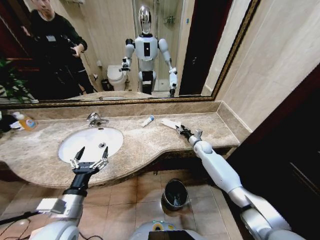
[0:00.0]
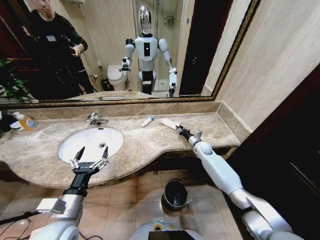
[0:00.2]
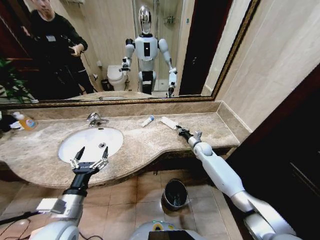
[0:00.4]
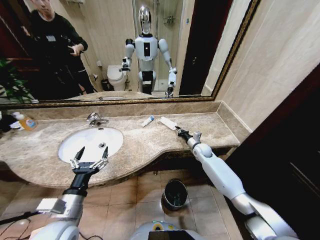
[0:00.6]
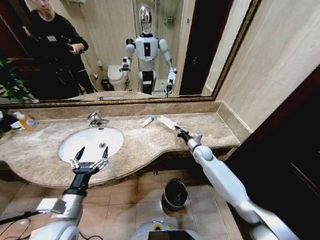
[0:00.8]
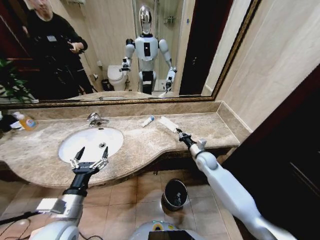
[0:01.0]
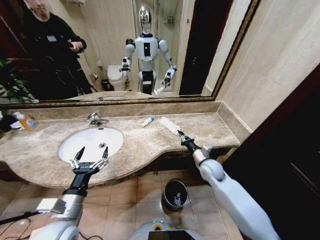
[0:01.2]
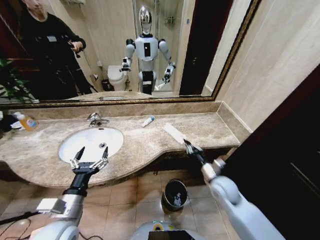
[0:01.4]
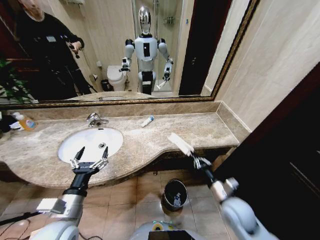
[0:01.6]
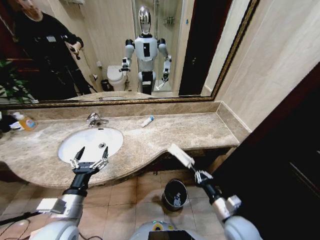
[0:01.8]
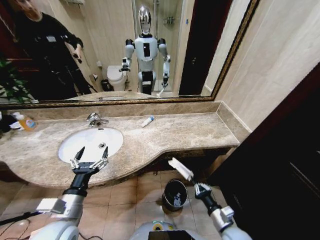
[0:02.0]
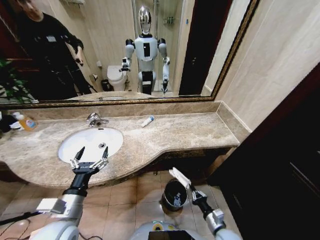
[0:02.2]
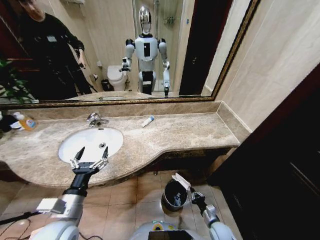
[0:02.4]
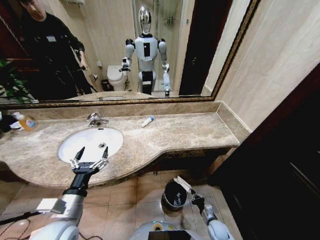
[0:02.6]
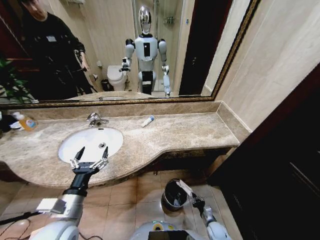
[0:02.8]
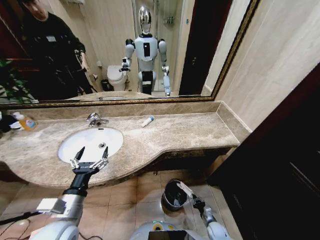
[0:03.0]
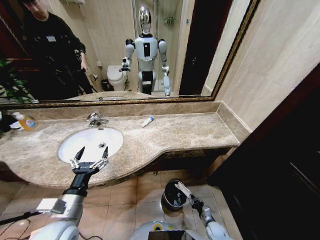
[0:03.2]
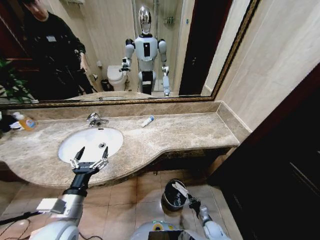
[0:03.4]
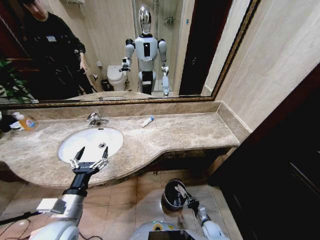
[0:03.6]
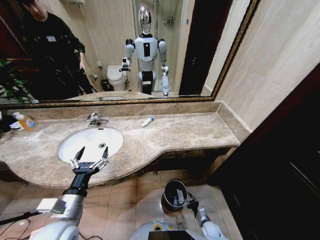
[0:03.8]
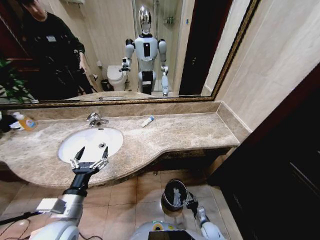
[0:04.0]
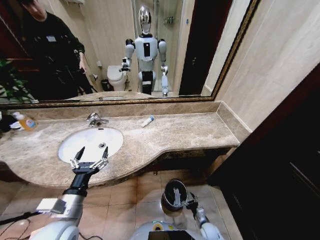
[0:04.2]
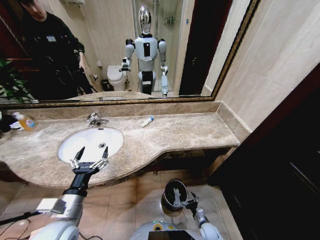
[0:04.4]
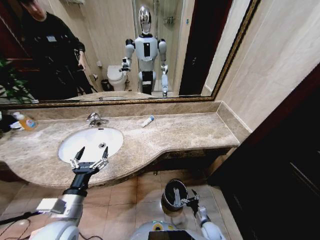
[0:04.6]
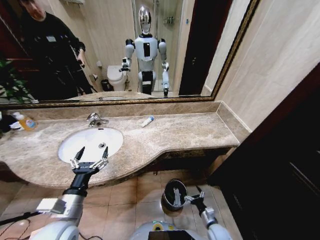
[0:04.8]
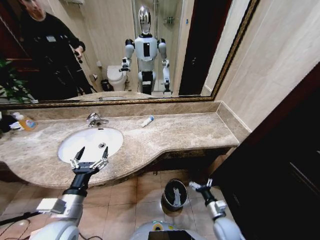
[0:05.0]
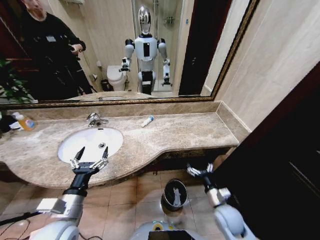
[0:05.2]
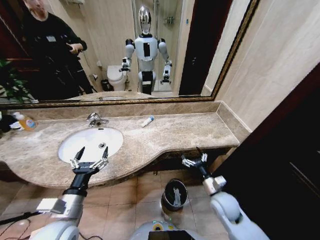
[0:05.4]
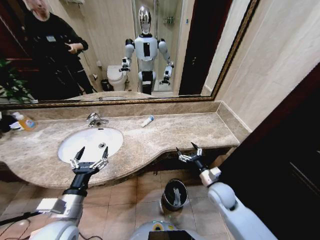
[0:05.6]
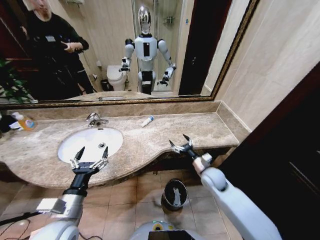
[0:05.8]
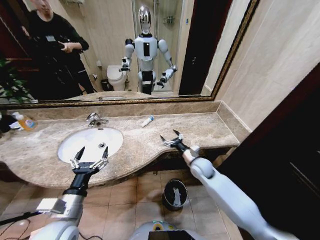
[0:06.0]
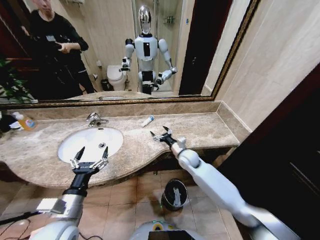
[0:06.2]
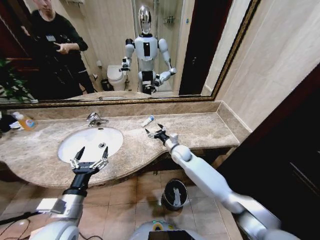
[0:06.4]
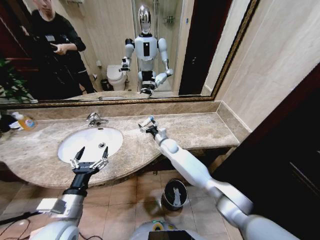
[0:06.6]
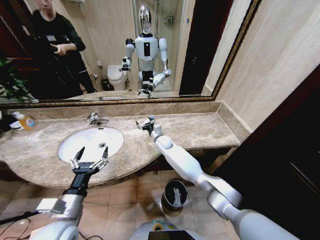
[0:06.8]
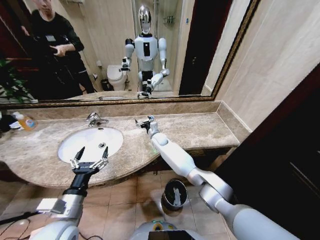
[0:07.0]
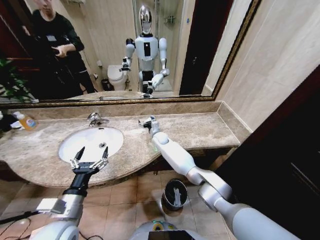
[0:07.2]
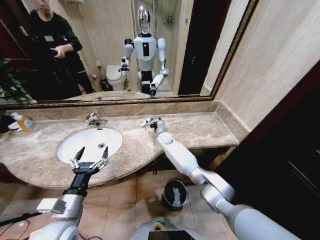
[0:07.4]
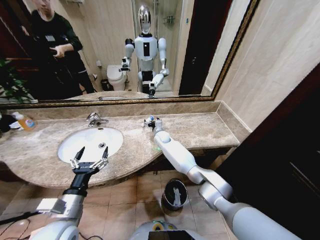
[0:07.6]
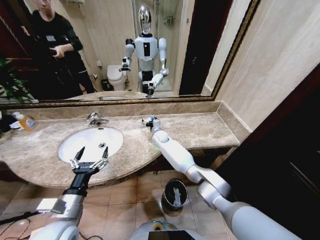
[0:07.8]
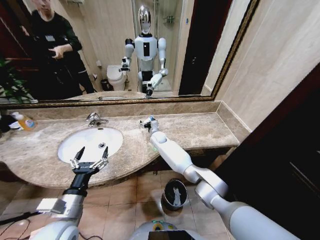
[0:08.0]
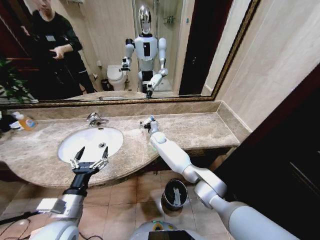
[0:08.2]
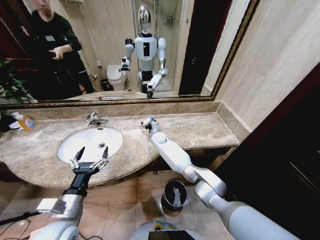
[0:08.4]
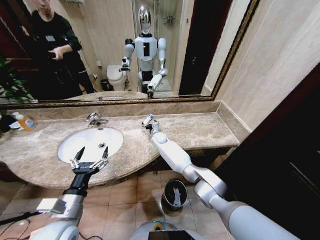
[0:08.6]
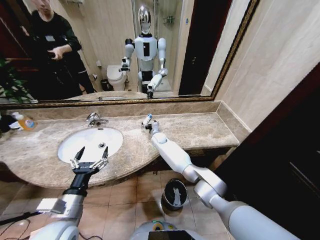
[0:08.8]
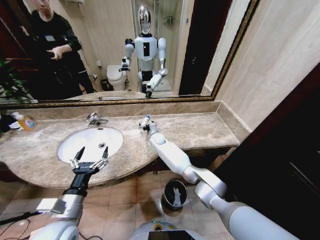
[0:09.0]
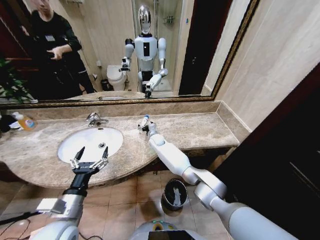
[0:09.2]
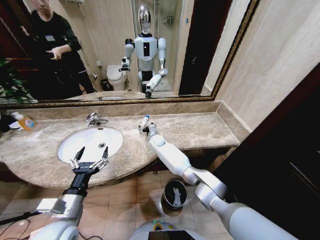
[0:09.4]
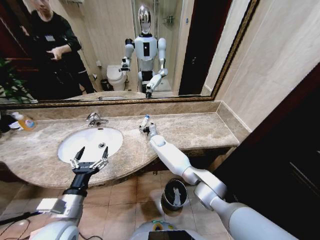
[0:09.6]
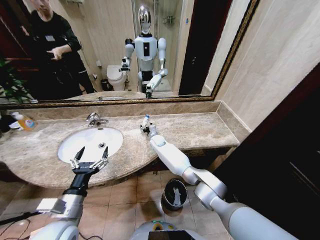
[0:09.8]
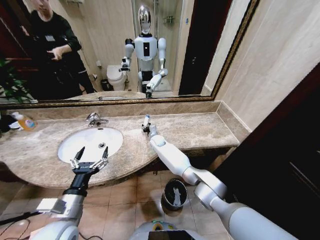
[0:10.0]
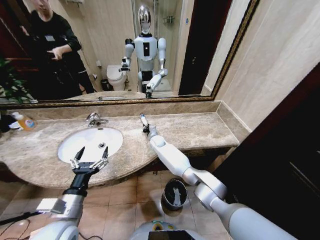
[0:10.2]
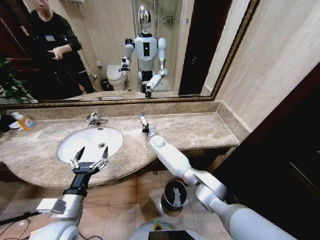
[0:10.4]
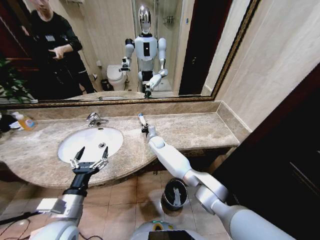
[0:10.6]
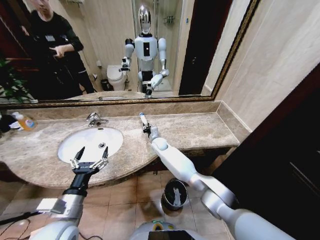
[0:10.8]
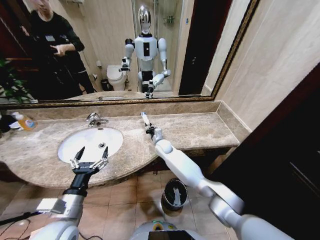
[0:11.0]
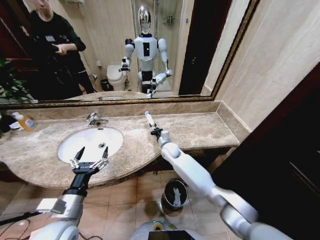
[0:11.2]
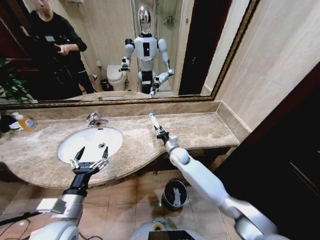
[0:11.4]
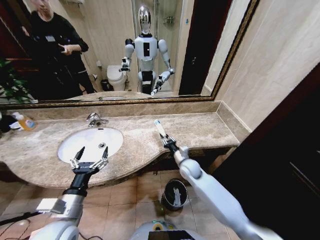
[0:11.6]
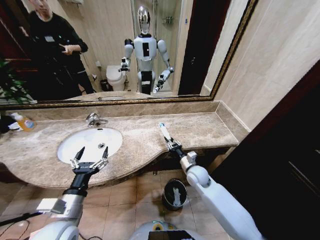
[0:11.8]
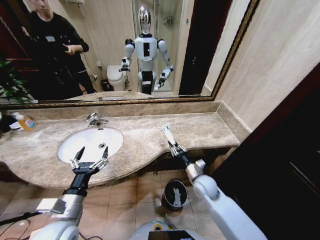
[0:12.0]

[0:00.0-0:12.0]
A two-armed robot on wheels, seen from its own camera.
Task of the whole recording: Pick up the trash from the sink and place it in the trash bin.
0:00.0 to 0:01.6: The right gripper travels backward by roughly 30 cm, and closes.
0:01.6 to 0:03.0: The right gripper goes approximately 35 cm downward.
0:03.0 to 0:04.4: The right gripper opens its fingers.
0:04.4 to 0:06.0: The right gripper moves upward and forward, some 40 cm.
0:06.0 to 0:07.6: The right gripper goes roughly 25 cm forward and to the left.
0:07.6 to 0:09.0: There are only small adjustments of the grippers.
0:09.0 to 0:10.4: The right gripper closes its fingers.
0:10.4 to 0:12.0: The right gripper shifts approximately 35 cm backward and to the right.

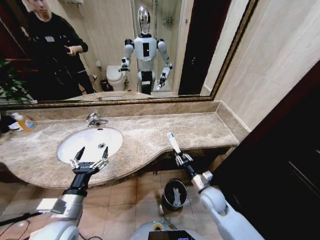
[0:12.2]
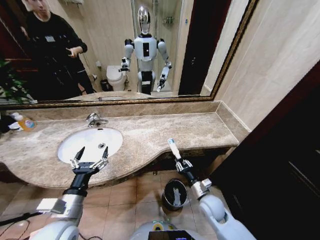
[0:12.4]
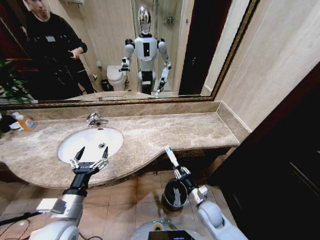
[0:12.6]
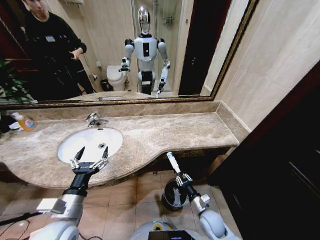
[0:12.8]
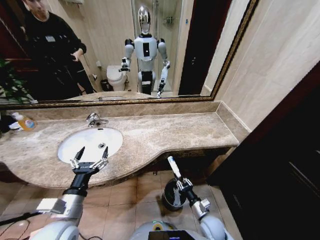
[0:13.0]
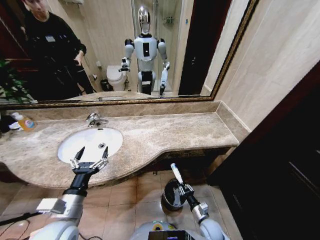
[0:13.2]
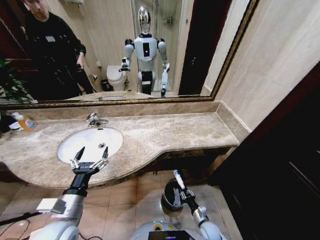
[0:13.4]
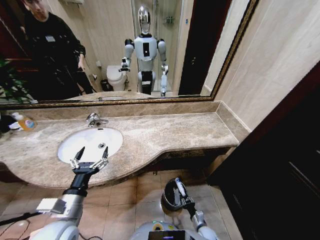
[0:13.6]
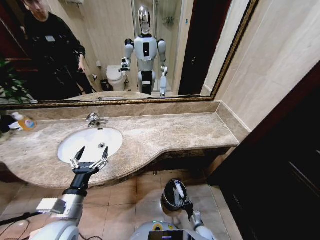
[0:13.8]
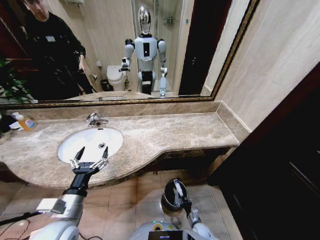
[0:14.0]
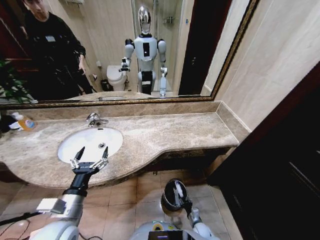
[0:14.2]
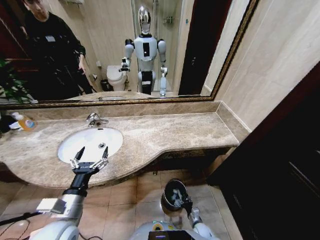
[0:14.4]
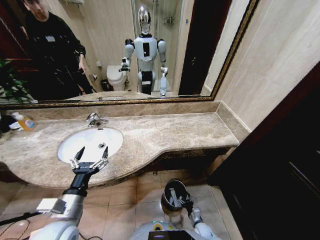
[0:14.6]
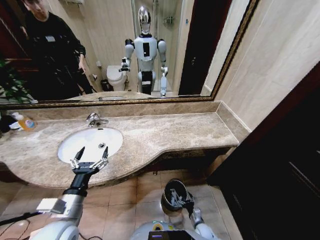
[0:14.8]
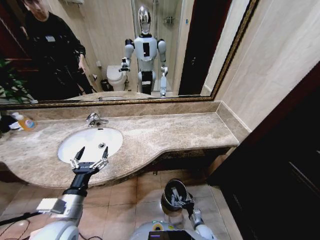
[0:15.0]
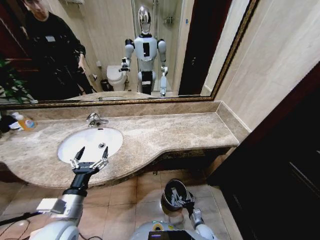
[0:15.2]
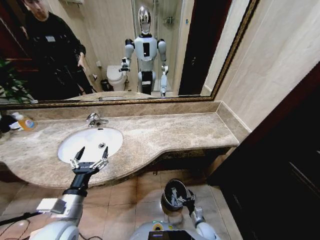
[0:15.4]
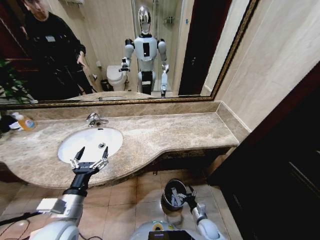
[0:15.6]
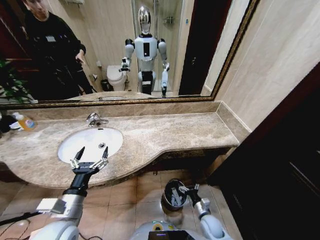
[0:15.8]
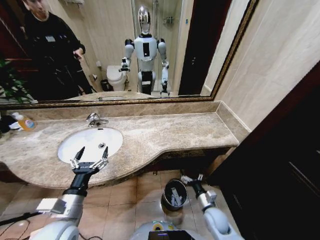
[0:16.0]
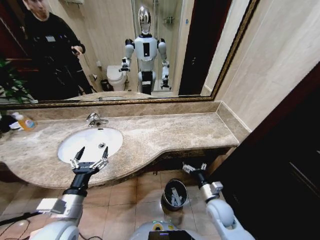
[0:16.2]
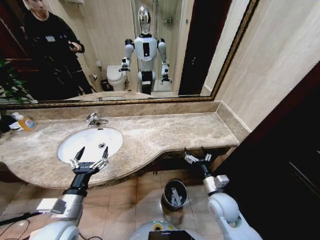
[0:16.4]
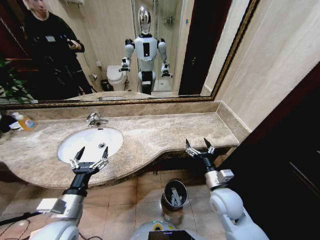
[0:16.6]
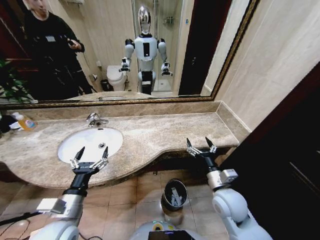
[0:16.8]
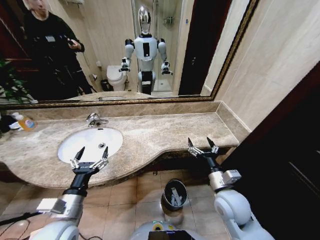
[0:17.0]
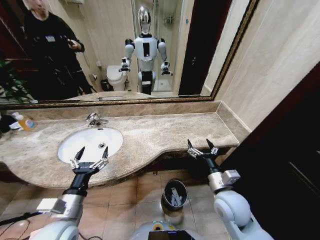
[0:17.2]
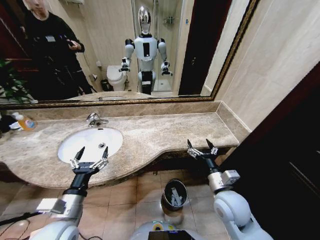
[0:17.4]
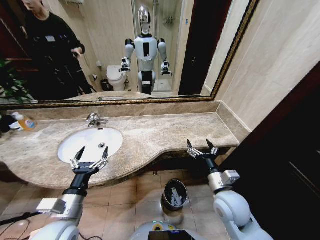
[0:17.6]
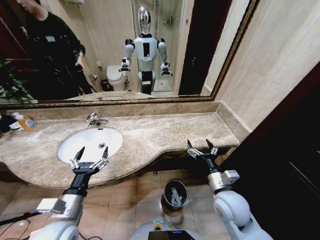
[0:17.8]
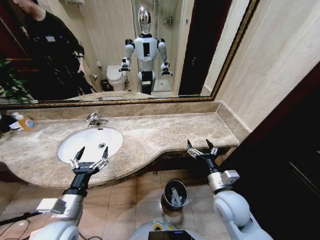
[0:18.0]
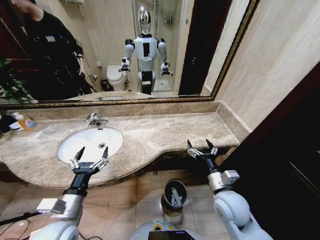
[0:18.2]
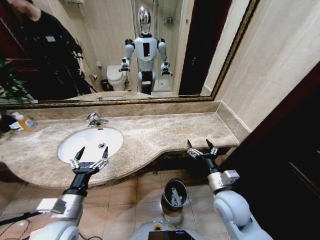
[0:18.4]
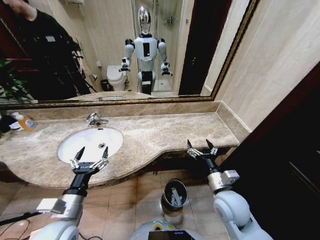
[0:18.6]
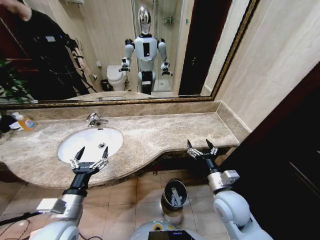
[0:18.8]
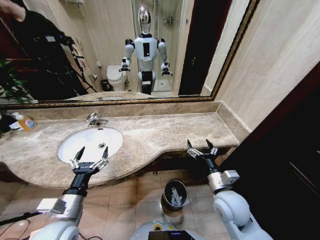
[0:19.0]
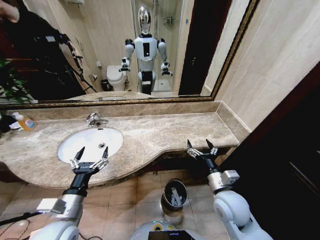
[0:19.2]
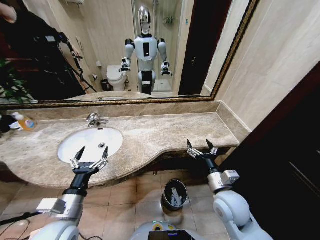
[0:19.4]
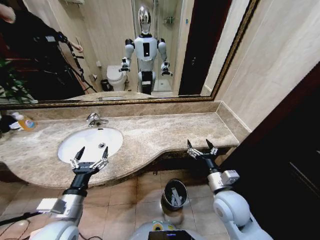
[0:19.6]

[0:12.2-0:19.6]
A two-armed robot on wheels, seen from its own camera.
Task of the whole recording: Pick up the trash from the sink and place it in the trash bin.
0:12.2 to 0:13.6: The right gripper travels downward by about 30 cm.
0:13.6 to 0:15.2: The right gripper opens.
0:15.2 to 0:16.6: The right gripper is displaced upward by about 35 cm.
0:16.6 to 0:18.2: There are only small adjustments of the grippers.
0:18.2 to 0:19.6: Both grippers stay about where they are.

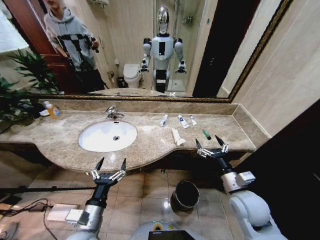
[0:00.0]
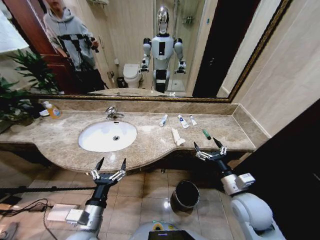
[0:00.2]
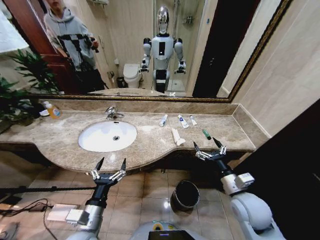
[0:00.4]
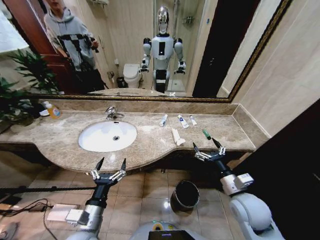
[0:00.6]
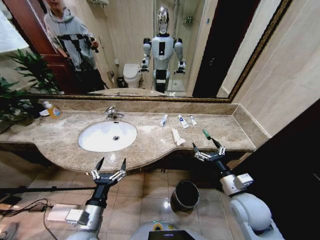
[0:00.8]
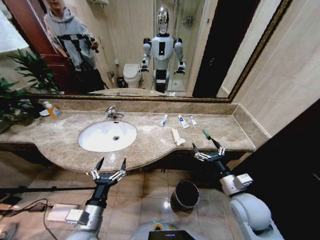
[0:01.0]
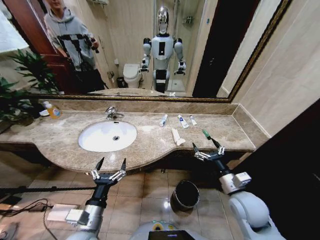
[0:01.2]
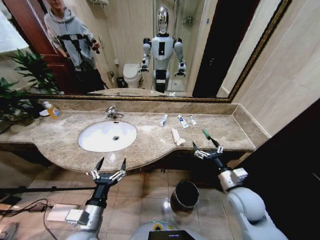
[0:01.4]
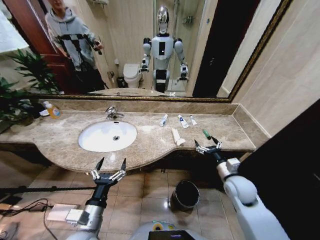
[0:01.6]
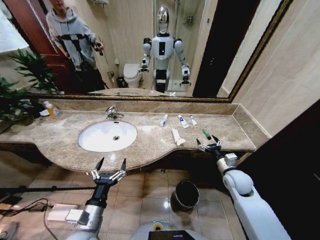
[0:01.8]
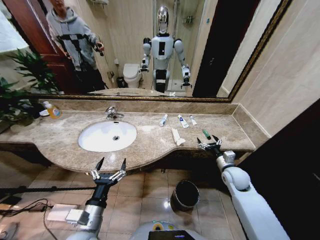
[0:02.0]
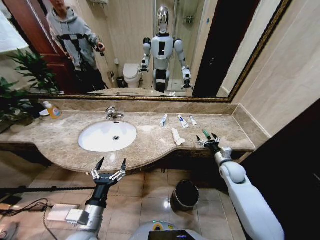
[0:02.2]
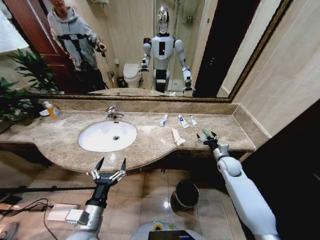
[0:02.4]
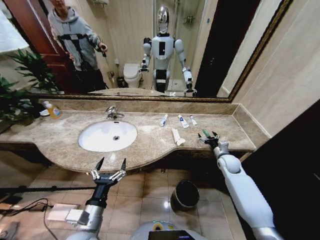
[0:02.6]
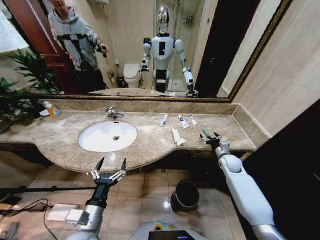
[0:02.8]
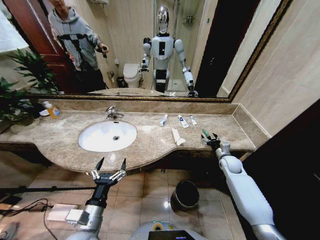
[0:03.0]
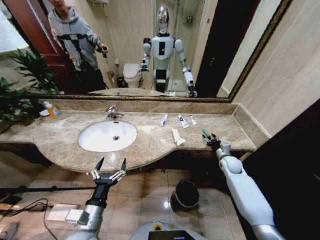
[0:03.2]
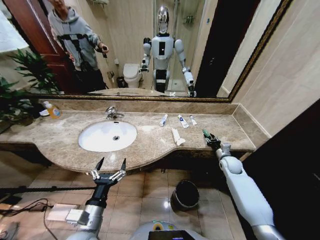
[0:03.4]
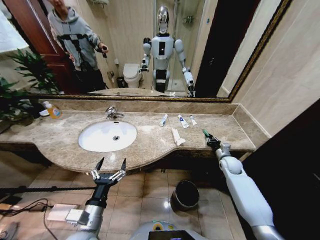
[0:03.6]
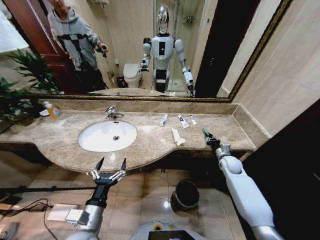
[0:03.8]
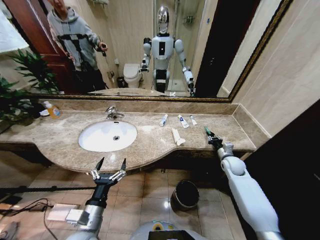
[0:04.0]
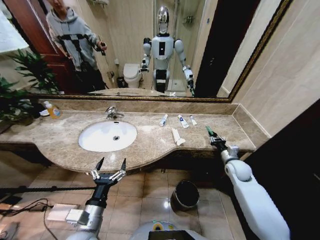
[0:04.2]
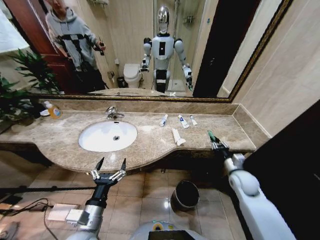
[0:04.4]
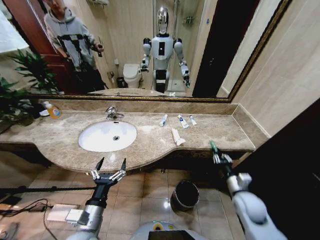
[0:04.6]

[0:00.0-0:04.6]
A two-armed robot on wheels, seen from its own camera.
Task of the whole recording: Pick up the trash from the sink and place it in the trash bin.
0:01.6 to 0:03.0: The right gripper travels forward, to the right and downward by about 20 cm.
0:03.0 to 0:04.6: The right gripper travels backward by some 20 cm, and closes.
